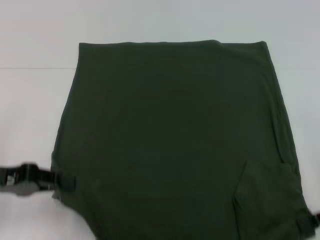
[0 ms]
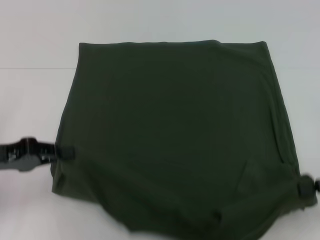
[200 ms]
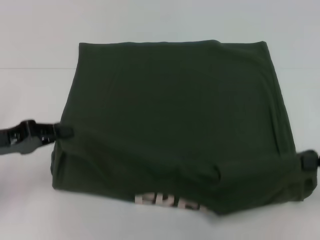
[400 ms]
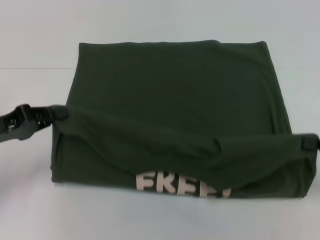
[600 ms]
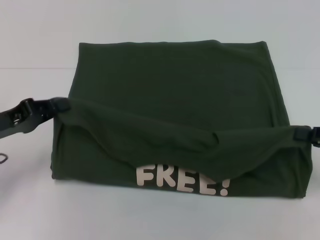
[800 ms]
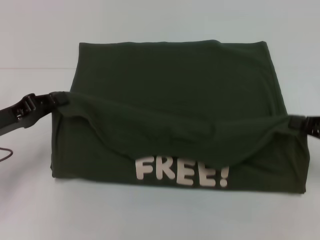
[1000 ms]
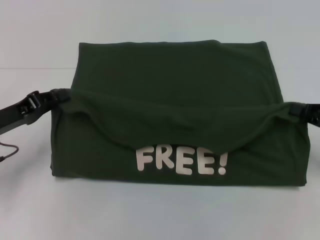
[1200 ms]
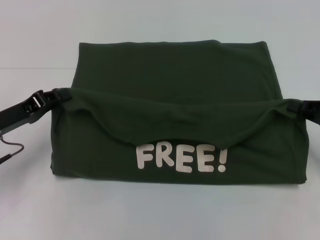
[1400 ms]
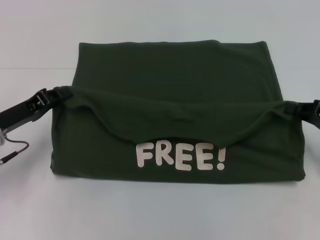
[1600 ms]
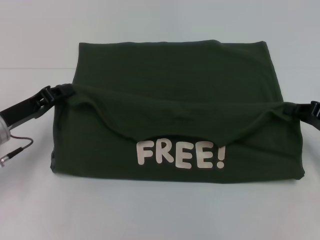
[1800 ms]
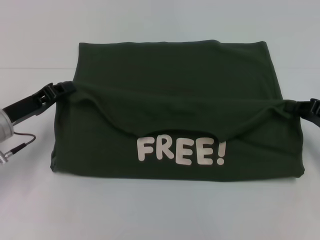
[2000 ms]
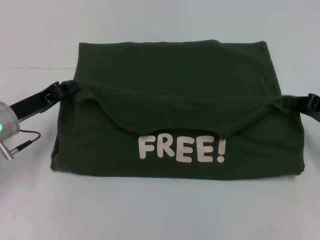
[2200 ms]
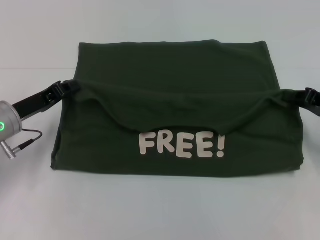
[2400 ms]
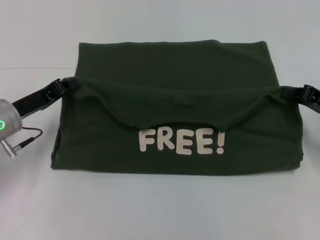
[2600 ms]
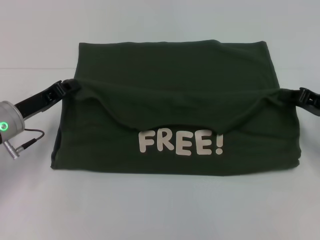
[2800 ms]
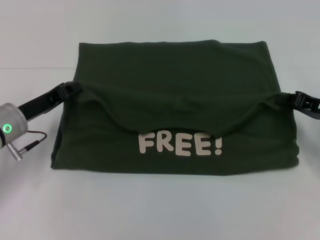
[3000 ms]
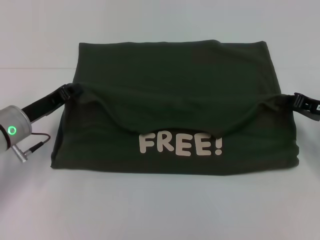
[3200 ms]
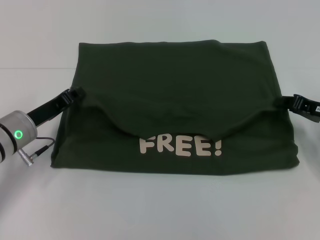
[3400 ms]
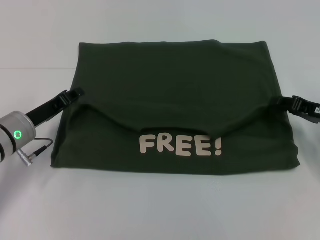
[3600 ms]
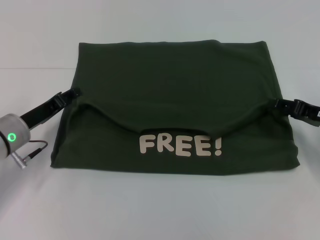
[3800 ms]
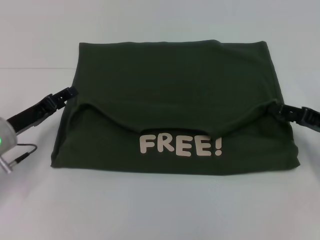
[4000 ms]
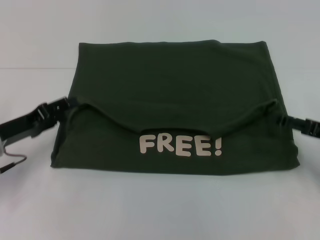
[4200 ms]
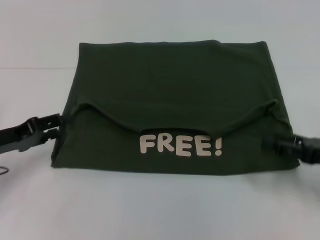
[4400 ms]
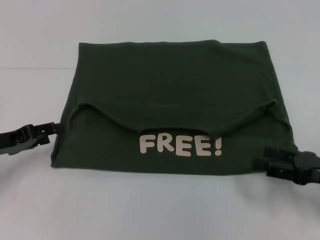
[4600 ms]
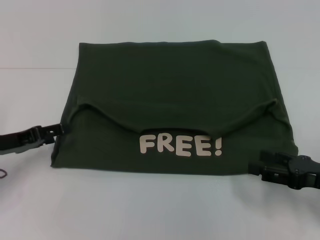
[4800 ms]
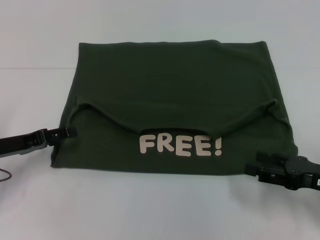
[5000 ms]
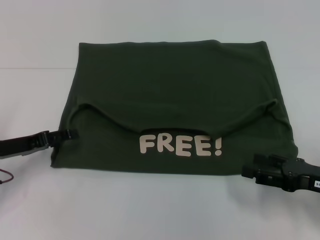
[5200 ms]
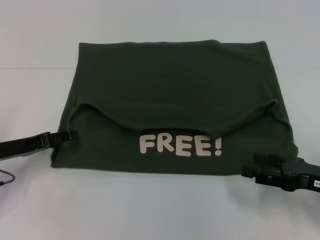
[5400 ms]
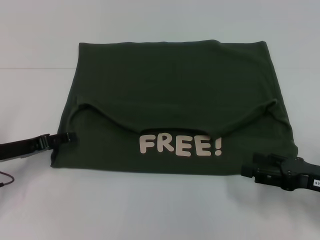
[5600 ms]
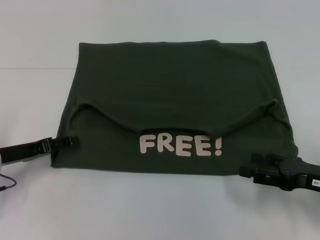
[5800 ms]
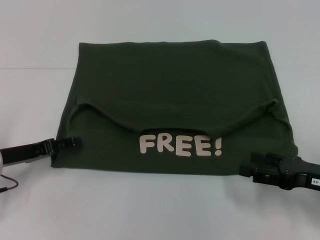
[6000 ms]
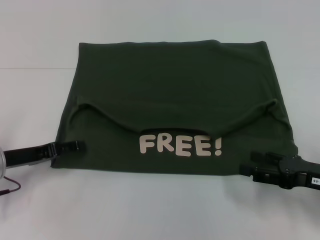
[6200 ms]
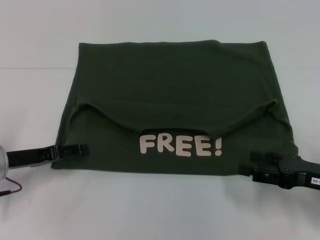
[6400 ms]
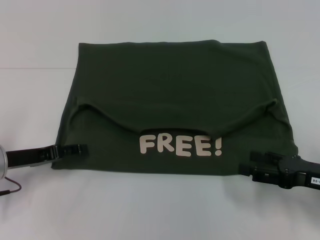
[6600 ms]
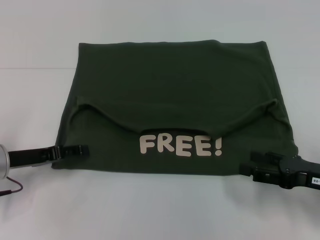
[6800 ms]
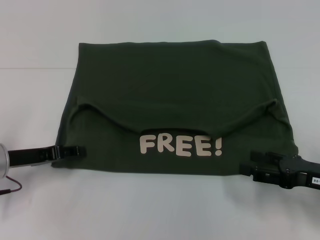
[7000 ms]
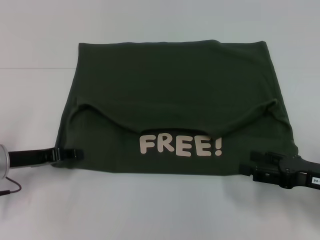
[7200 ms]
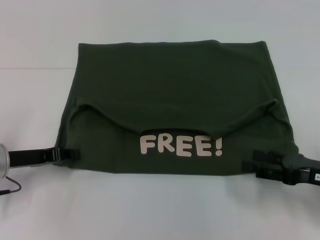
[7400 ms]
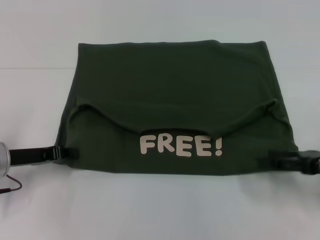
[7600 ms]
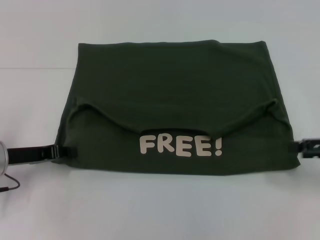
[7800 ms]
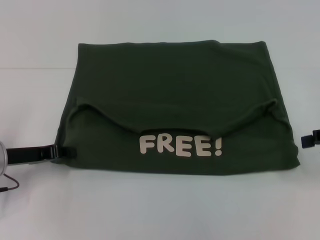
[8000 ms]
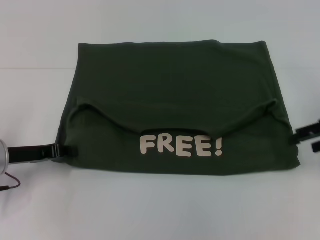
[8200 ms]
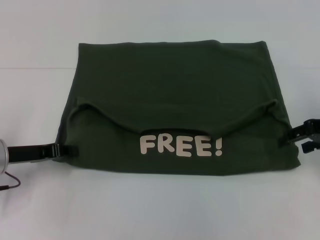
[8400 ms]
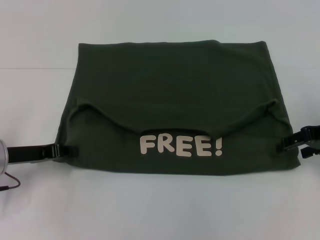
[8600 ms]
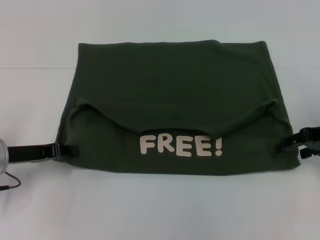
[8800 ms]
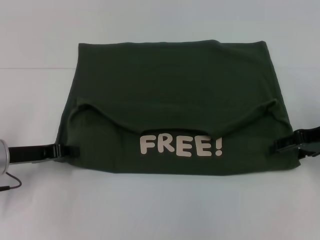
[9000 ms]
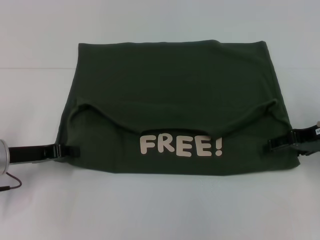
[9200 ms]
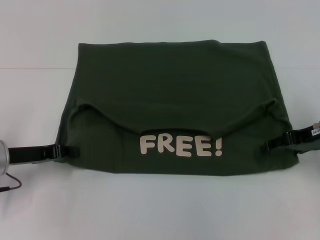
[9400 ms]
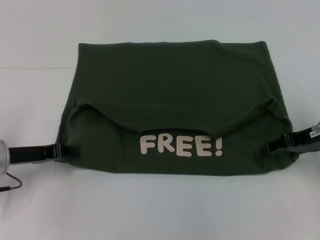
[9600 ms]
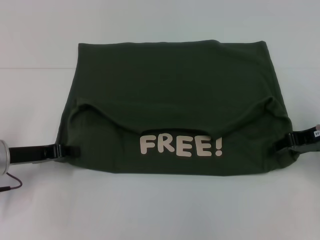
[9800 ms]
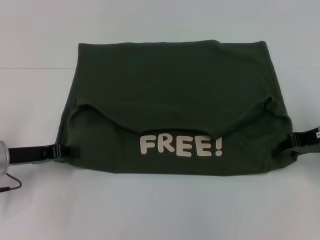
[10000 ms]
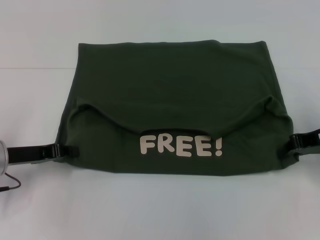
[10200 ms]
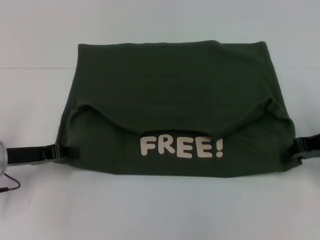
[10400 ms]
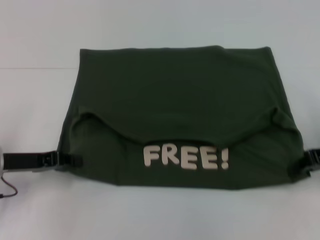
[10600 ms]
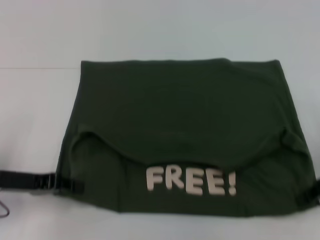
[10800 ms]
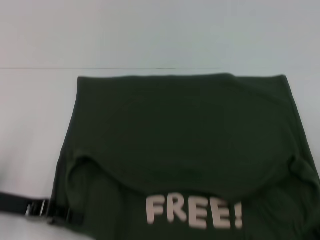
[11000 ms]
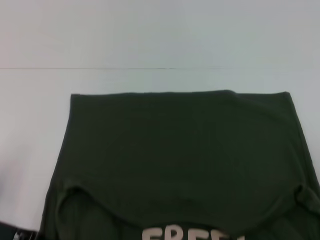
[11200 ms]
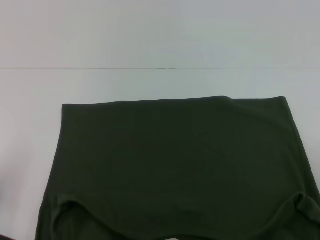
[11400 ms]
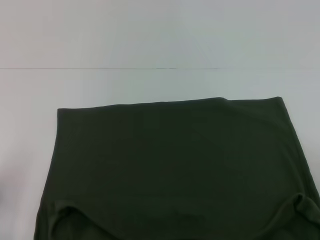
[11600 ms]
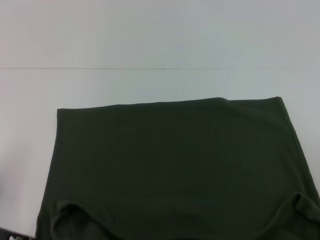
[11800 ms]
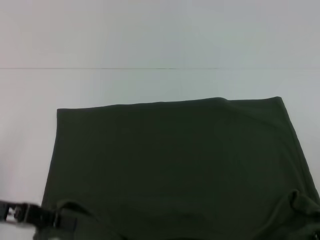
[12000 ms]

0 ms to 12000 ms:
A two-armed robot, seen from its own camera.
Step, 0 ms to 4200 ms: Fold the clothes with your left hand.
Step, 0 ms to 4200 ms: Fold the clothes with your right hand.
Step, 4400 ms to 11400 ms: Pull the clothes with your left hand.
Step, 4400 ms to 11400 ms: Pull the clothes with your right hand.
0 ms to 1600 ms: The grippers both shift forward by some 5 cm.
1600 ms to 3000 ms: The grippers make only small movements.
3000 ms to 4400 ms: The left gripper travels to the left by approximately 5 cm, and opens, while the right gripper moves backward, about 10 cm, and opens up.
4400 ms to 6000 ms: The grippers move only a little.
6000 ms to 7600 ms: The left gripper closes up.
7600 ms to 9000 ms: The right gripper shifts approximately 10 cm forward.
9000 ms to 10400 ms: The right gripper closes up.
10400 ms to 12000 ms: The grippers both shift backward by some 10 cm.

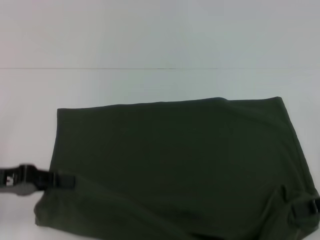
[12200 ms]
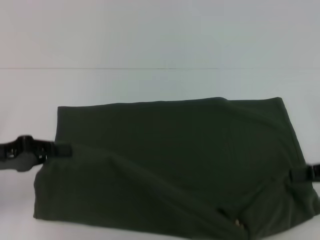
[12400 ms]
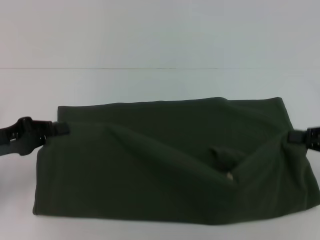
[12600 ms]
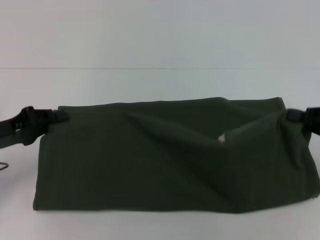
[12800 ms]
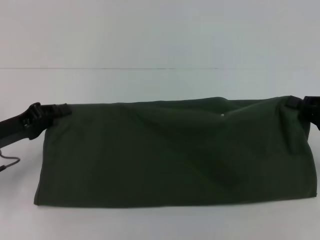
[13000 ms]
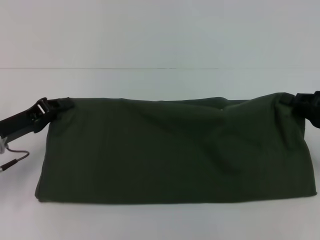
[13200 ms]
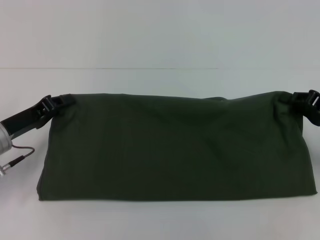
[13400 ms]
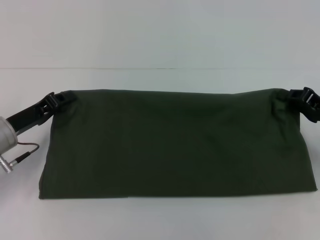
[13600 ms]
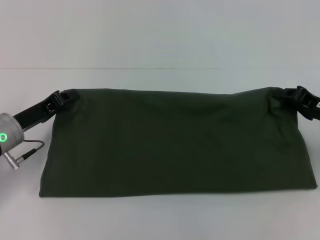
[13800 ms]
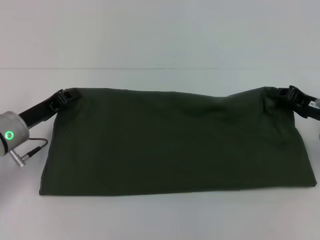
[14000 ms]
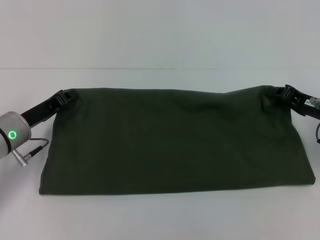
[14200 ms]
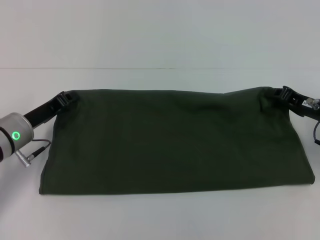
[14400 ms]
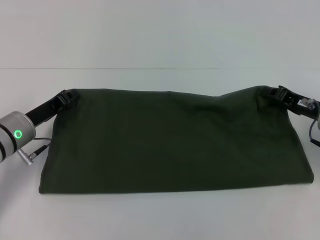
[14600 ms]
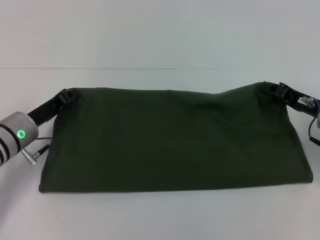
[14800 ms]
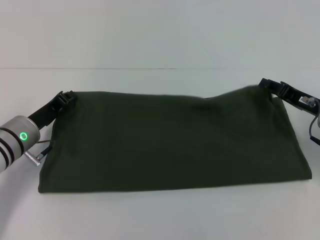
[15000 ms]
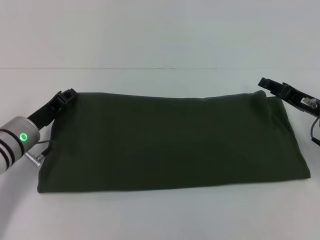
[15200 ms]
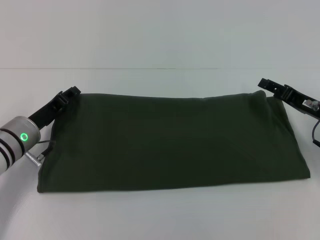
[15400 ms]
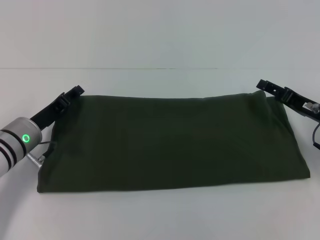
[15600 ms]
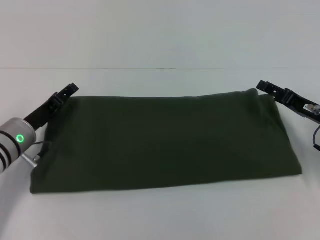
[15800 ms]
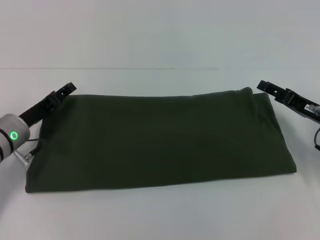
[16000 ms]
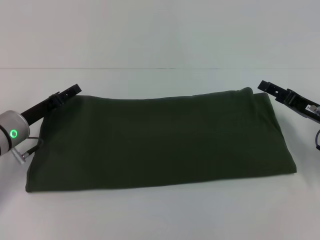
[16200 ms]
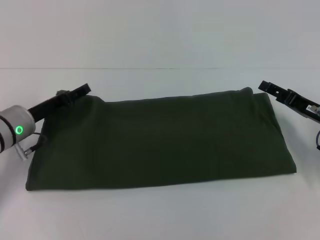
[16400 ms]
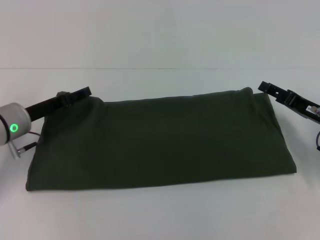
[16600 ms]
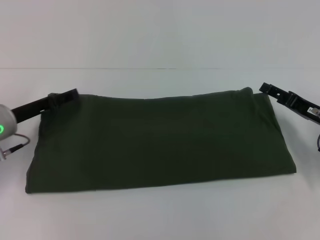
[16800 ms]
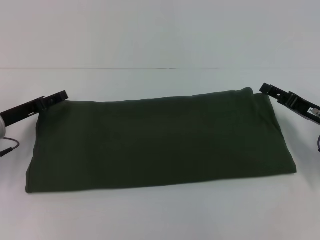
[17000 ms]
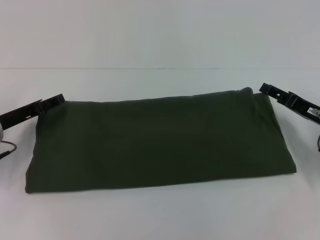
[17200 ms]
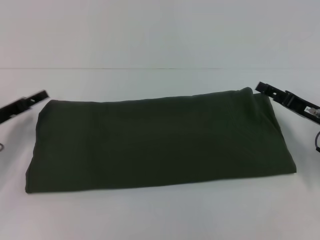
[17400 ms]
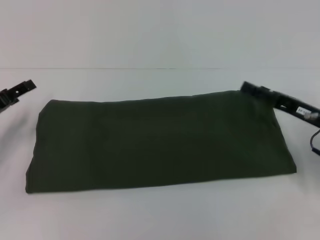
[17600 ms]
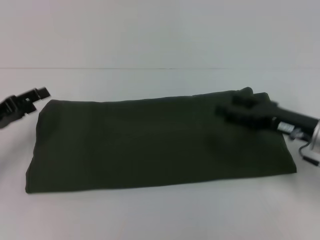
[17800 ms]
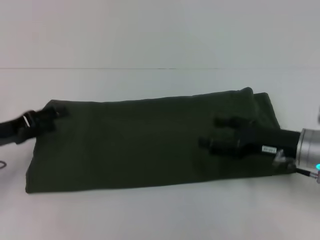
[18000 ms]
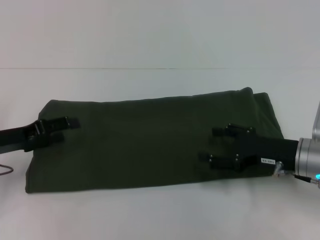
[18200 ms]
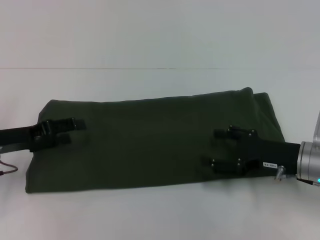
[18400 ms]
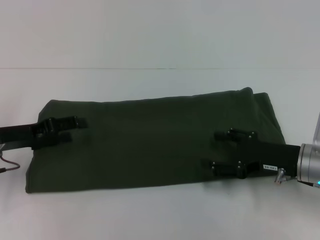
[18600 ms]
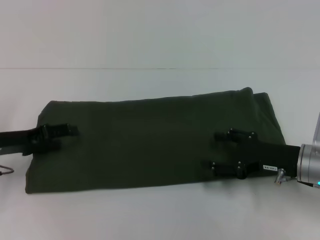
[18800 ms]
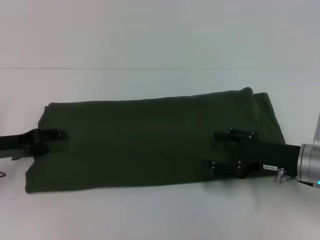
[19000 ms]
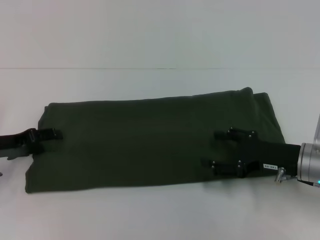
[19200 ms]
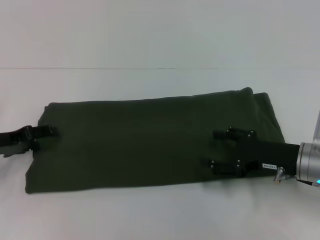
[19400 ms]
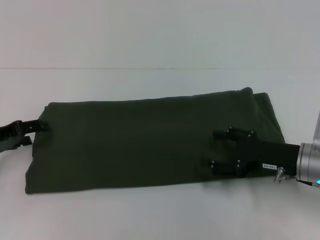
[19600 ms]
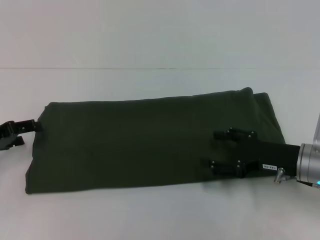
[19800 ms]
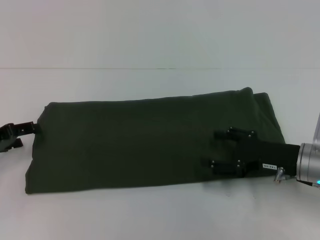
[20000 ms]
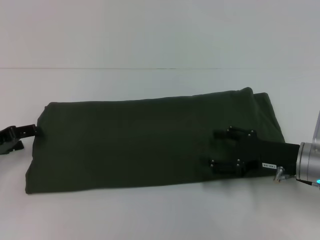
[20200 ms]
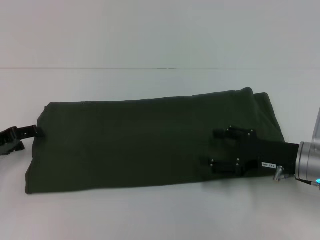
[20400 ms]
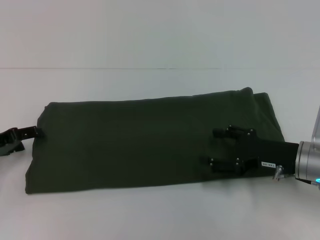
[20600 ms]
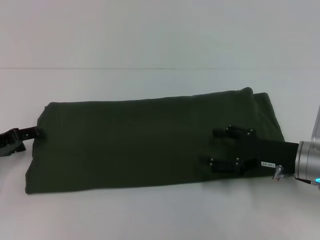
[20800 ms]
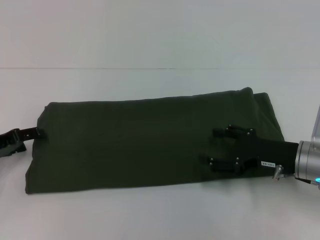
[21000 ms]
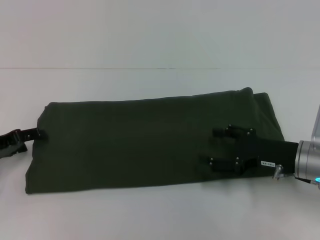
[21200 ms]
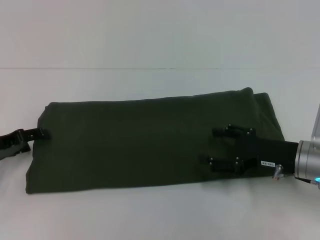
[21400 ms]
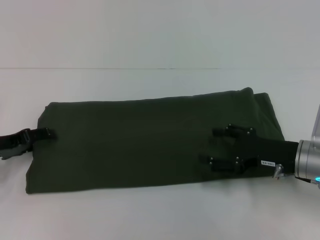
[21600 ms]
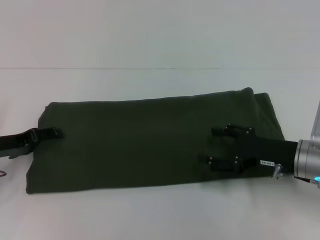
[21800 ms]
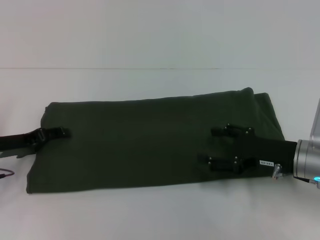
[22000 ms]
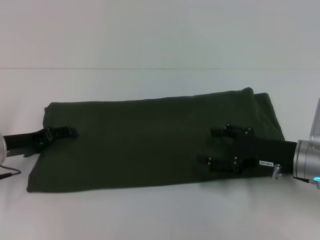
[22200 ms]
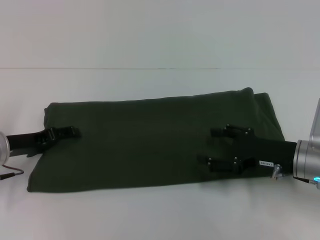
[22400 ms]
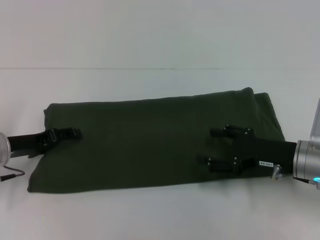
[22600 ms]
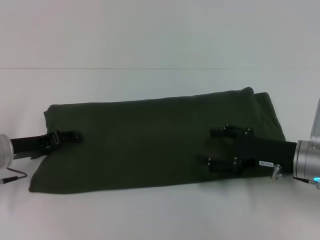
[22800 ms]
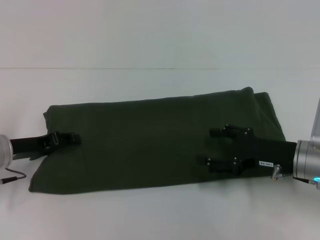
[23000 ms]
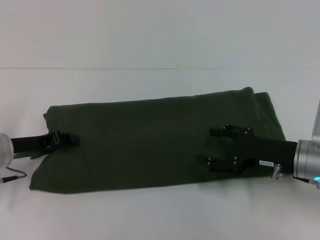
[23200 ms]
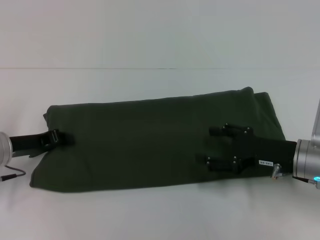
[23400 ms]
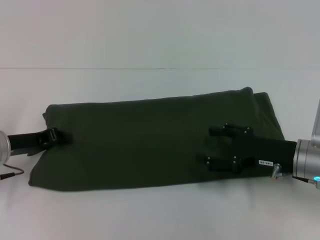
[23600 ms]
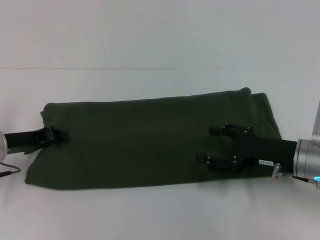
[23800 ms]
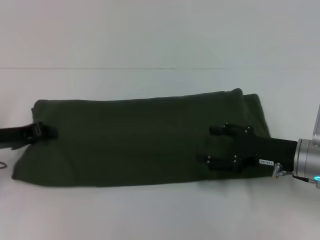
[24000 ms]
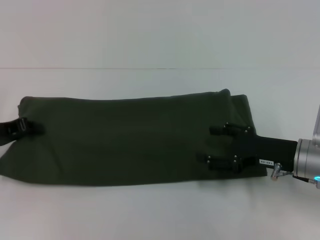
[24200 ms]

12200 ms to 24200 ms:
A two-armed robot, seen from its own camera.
Step, 12200 ms to 15600 ms: Fold the clothes with your right hand.
12200 ms to 13800 ms: The two grippers go about 10 cm forward.
13800 ms to 15200 ms: The grippers stay close to where they were, moving slightly.
15200 ms to 16600 ms: The left gripper opens its fingers, while the right gripper opens.
16600 ms to 18200 ms: The left gripper heads backward and to the left, covering about 5 cm. Meanwhile the right gripper heads to the left, covering roughly 5 cm.
18200 ms to 21200 ms: The grippers move only a little.
21200 ms to 22600 ms: The left gripper travels to the right by approximately 5 cm.
22600 ms to 24200 ms: The left gripper moves some 5 cm, and closes.
